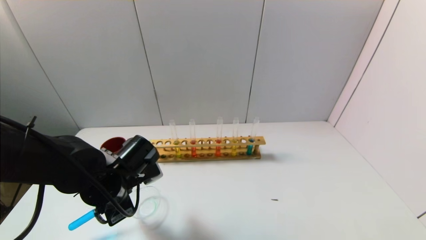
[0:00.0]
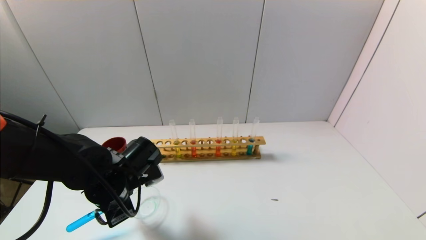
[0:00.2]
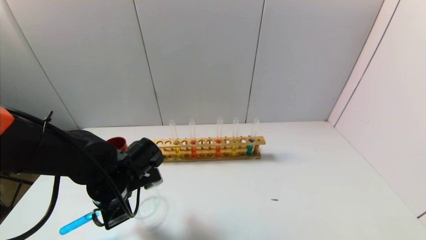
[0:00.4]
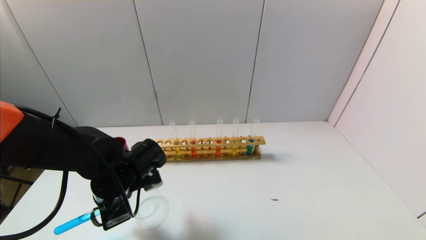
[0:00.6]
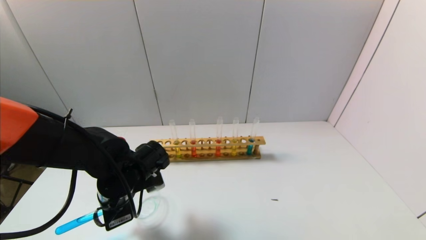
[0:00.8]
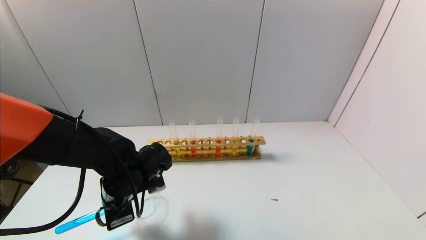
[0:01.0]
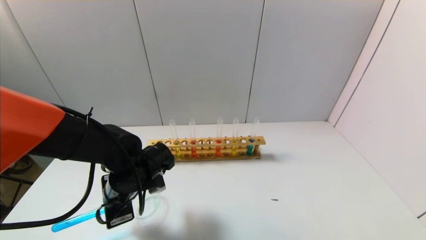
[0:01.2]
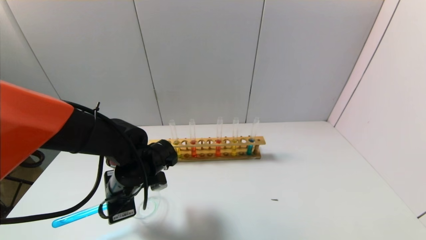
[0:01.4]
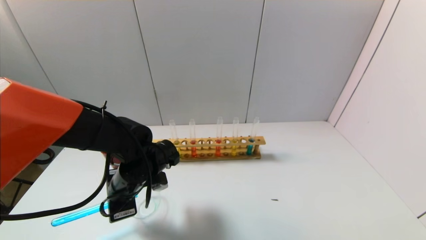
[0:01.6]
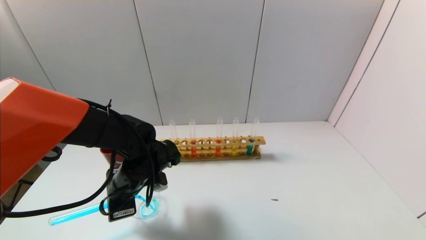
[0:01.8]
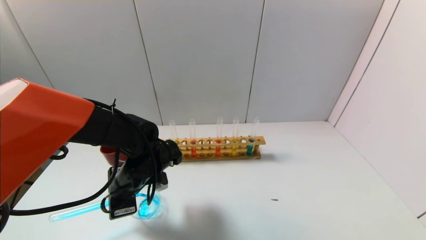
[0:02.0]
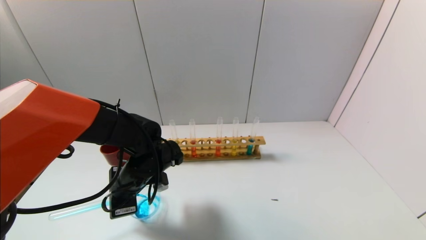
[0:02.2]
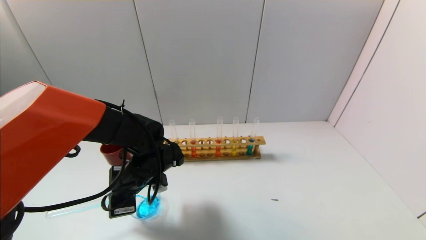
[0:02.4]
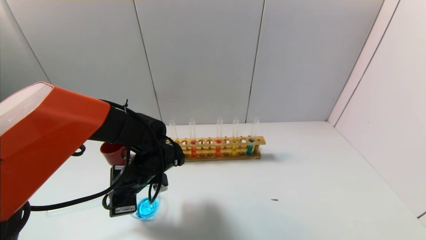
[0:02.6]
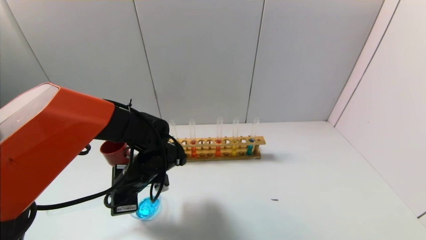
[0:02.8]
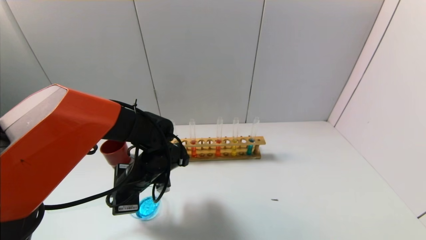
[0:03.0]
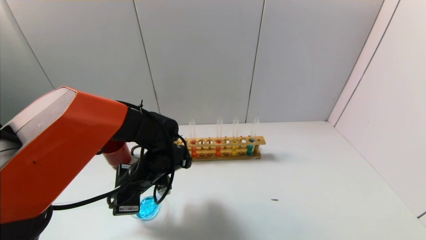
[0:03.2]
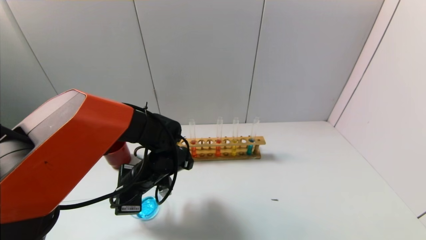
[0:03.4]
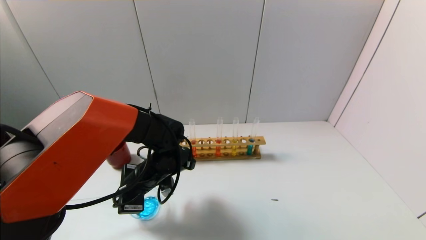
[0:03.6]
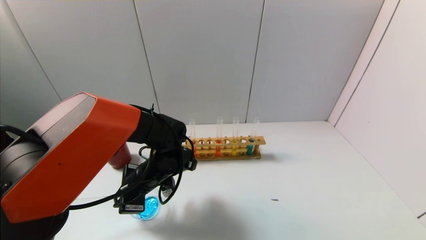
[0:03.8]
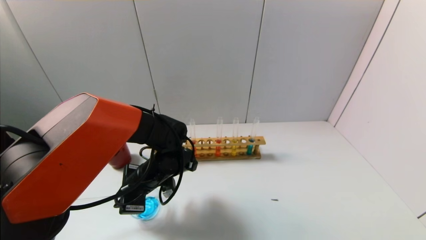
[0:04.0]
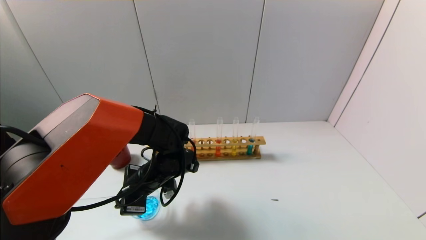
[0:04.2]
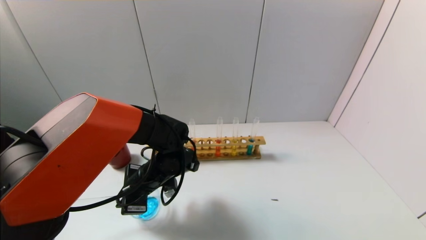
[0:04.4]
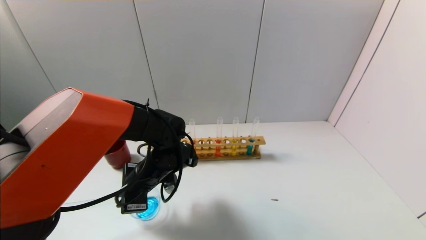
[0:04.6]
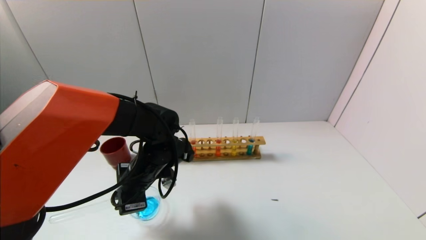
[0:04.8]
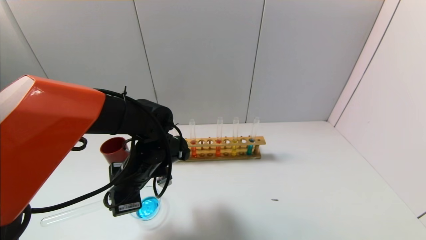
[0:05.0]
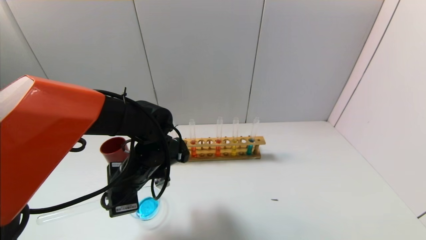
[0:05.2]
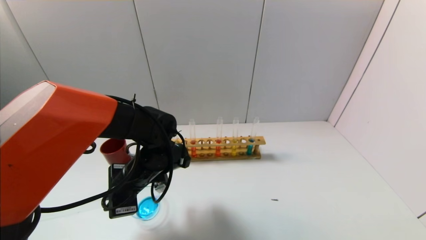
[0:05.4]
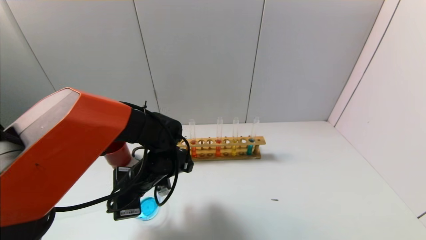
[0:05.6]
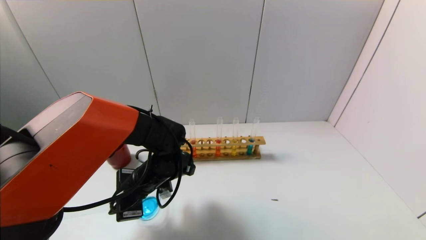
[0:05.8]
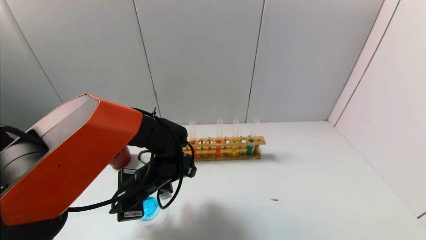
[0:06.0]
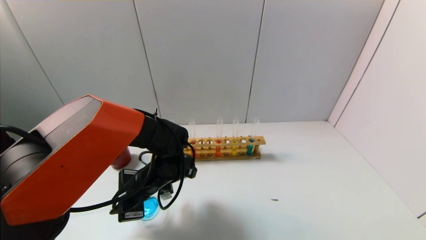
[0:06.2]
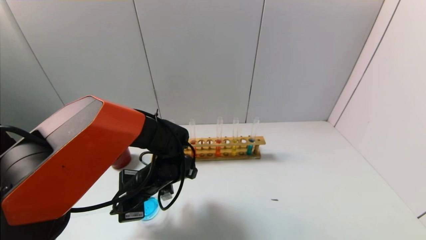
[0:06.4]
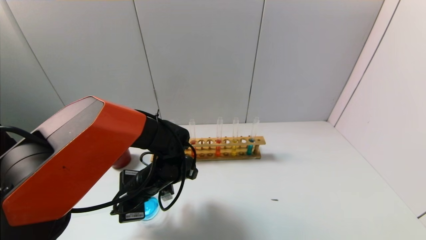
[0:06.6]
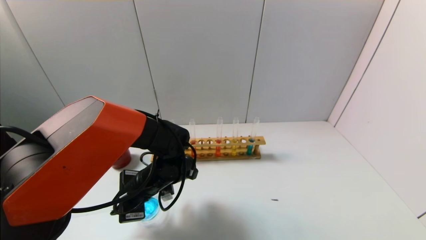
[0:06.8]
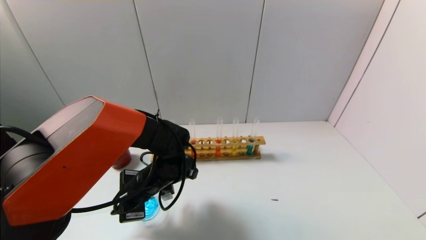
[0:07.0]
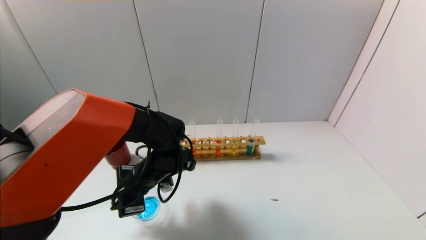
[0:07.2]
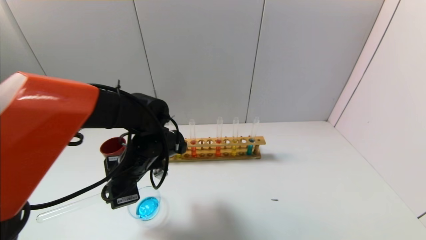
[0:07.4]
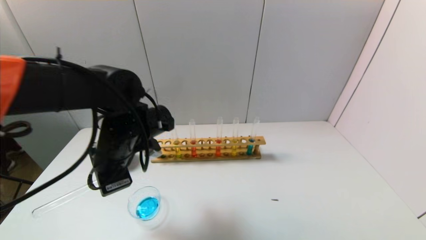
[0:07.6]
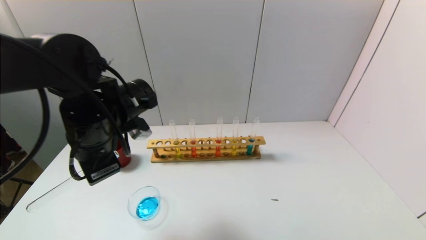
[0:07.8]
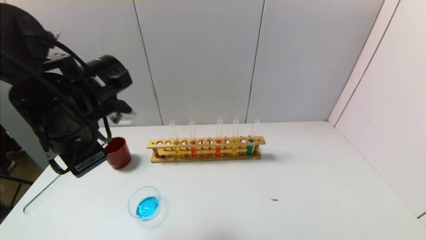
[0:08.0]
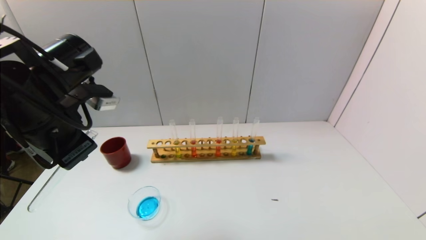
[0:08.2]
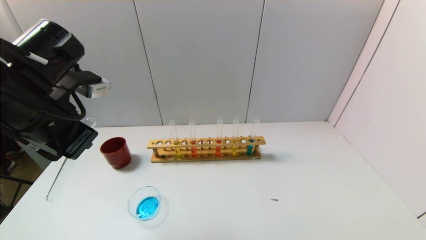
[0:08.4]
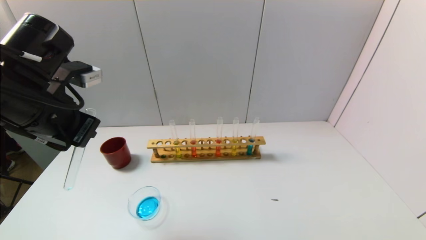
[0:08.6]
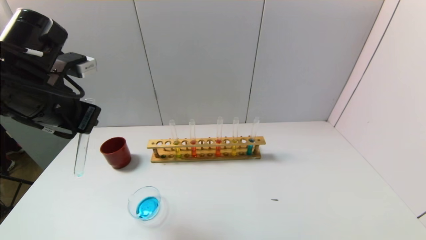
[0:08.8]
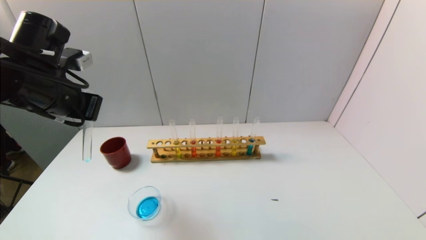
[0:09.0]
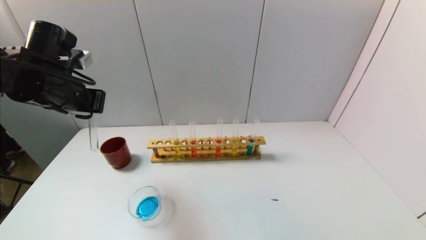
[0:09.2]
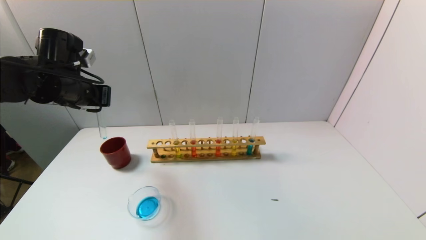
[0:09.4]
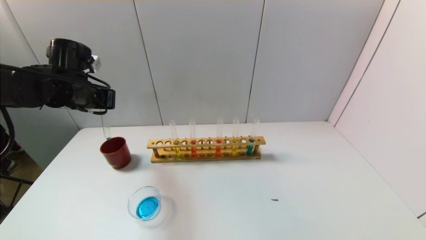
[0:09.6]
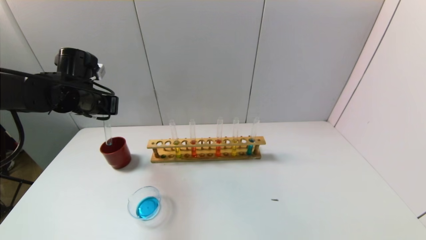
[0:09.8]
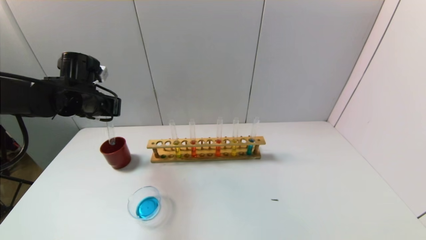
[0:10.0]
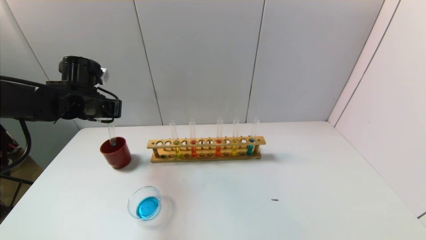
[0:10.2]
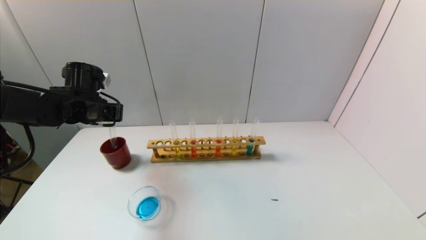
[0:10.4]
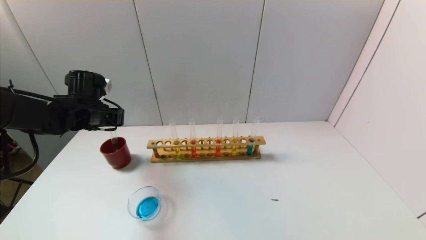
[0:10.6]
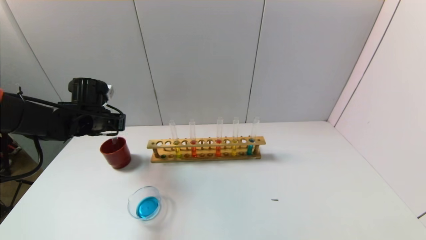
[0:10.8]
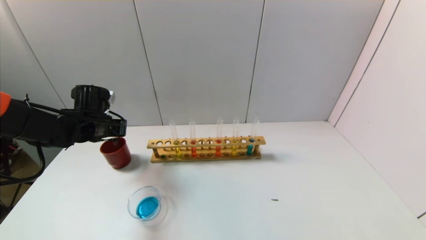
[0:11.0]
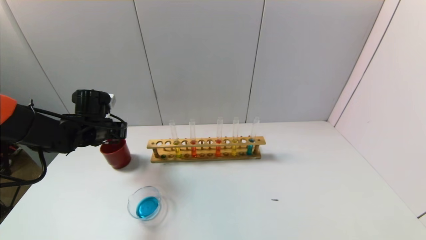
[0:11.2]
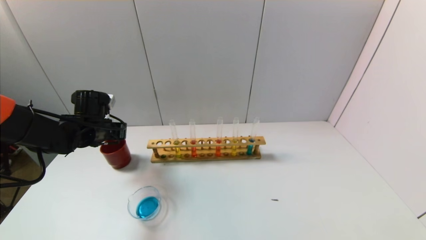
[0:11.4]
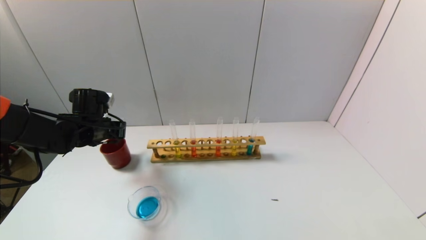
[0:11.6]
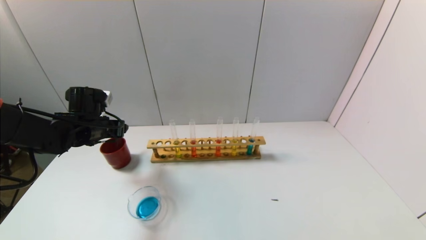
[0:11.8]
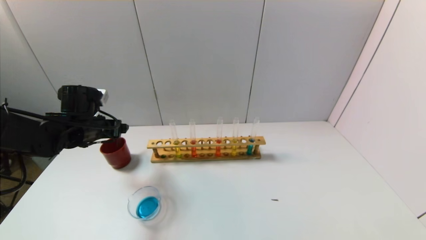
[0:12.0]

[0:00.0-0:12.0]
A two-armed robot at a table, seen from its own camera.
Task of the whole recording: pick up the test tube with yellow pigment and the test tube with blue pigment by grippers and pour them into the beaker.
Step, 0:00.0 to 0:05.0: Pour the blue reagent into the graduated cylinder with the left gripper.
Step, 0:05.2 to 0:11.6: Place the test tube into the brown cup with the left gripper.
0:01.6 to 0:06.0: The grippers stay close to where they were, moving slightly.
0:06.0 to 0:07.6: The left gripper is displaced upward by about 10 cm.
0:07.6 to 0:09.0: The left gripper is displaced to the left and upward by roughly 15 cm.
0:09.0 to 0:10.4: The left gripper goes roughly 15 cm forward and downward.
0:10.4 to 0:12.0: The left gripper opens up.

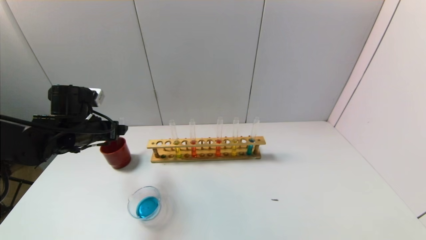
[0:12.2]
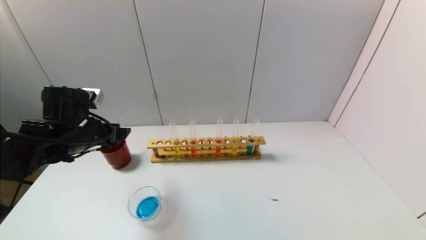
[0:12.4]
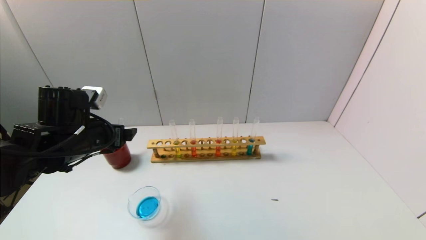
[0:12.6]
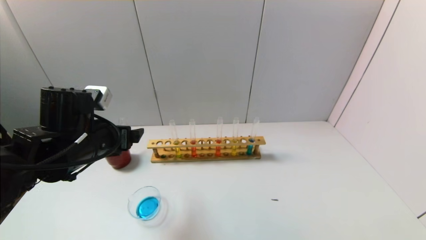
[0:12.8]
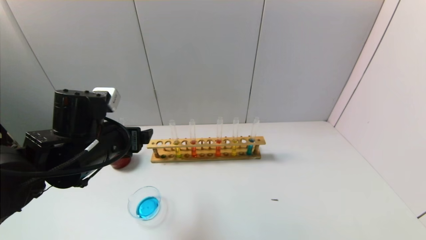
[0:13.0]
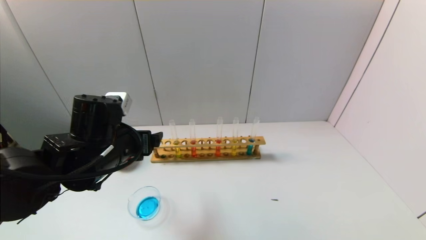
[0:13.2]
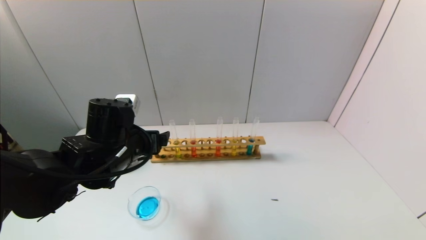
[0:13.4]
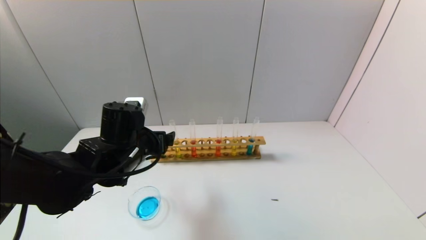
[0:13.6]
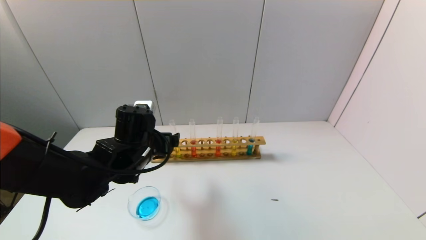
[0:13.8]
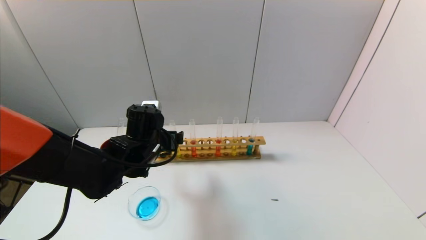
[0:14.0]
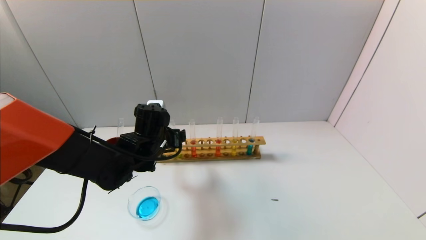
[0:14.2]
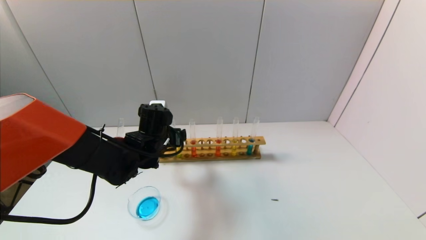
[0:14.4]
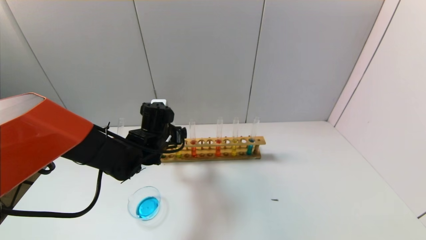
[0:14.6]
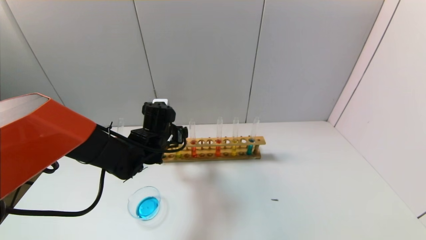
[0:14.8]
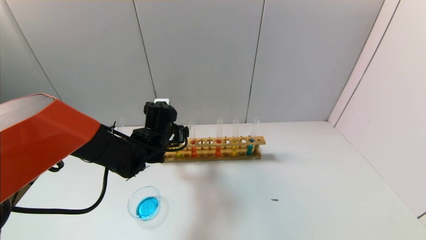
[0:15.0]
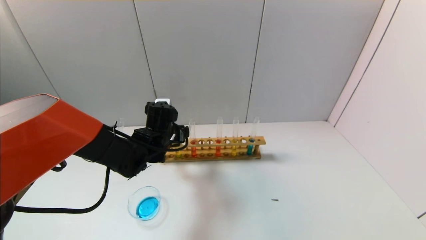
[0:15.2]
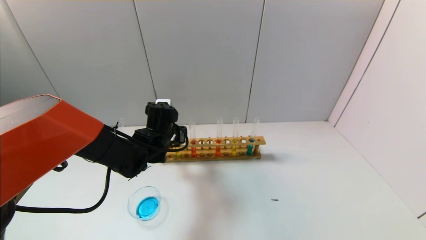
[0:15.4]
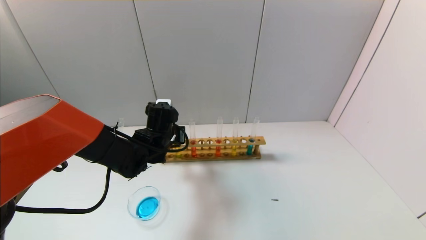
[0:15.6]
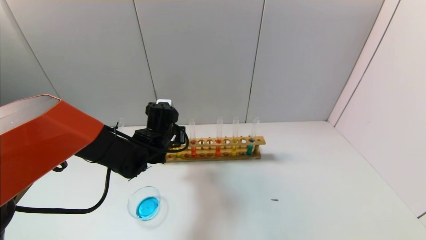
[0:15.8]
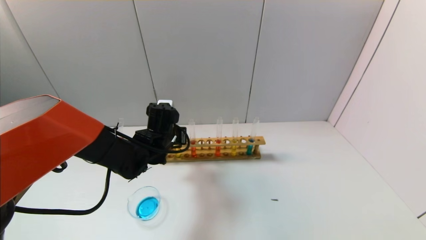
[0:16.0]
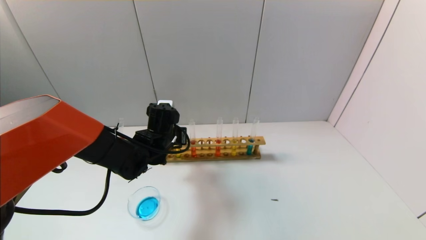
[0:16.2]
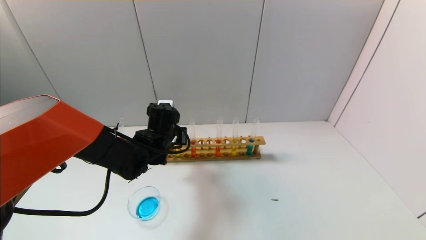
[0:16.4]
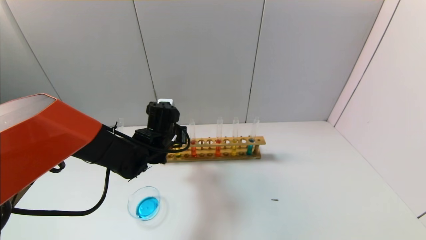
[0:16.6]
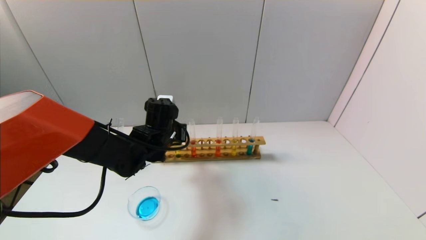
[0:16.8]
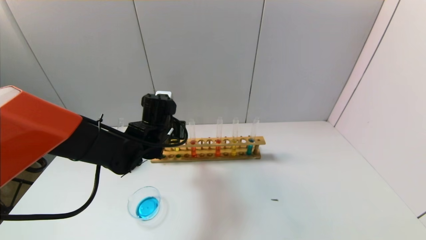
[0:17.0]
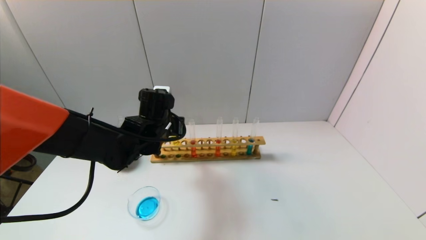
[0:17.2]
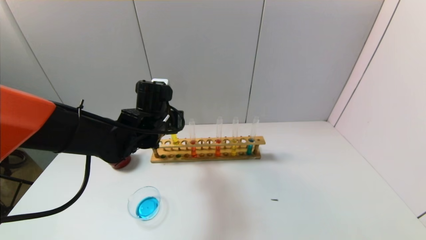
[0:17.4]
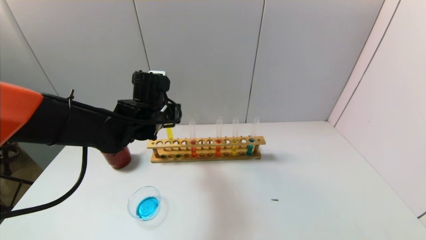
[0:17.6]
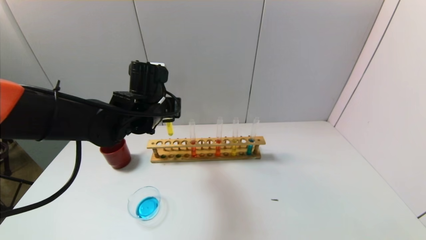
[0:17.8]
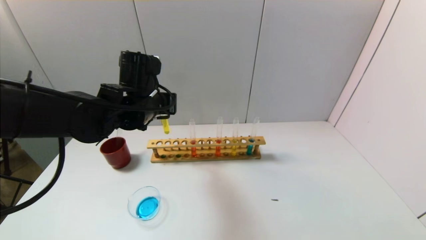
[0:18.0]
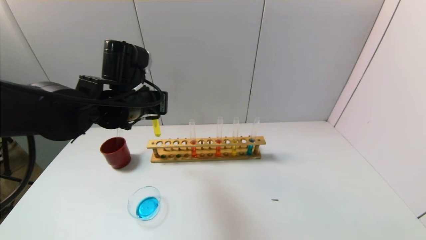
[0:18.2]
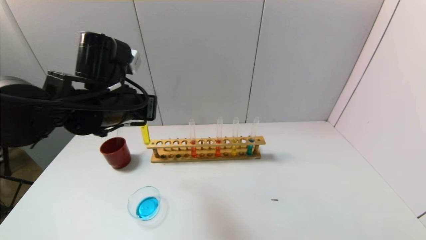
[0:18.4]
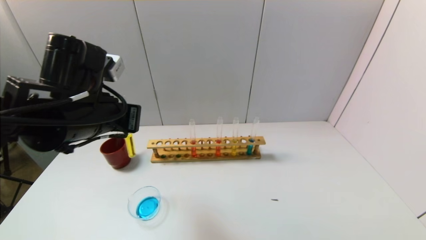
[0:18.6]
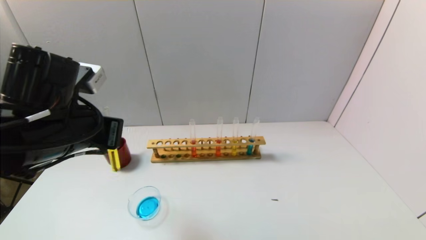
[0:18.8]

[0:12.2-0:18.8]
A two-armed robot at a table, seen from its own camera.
Task of the whole recording: pick up the test tube with yellow pigment and the test tube with blue pigment by grippers and pour them into the beaker.
Step, 0:12.2 to 0:16.0: Grasp the yellow reagent with the left gripper.
0:12.2 to 0:13.8: The left gripper goes approximately 15 cm to the right.
0:13.8 to 0:15.4: The left gripper moves forward, roughly 10 cm.
0:15.4 to 0:17.2: The left gripper closes.
0:17.2 to 0:18.8: The left gripper shifts roughly 20 cm backward, upward and to the left.
